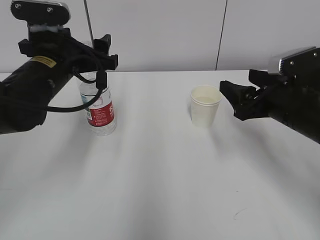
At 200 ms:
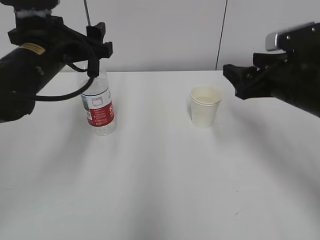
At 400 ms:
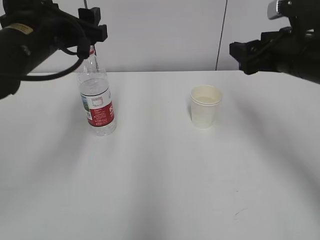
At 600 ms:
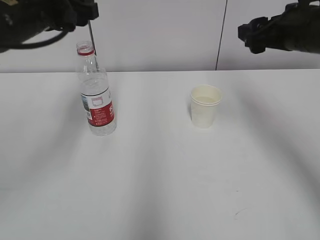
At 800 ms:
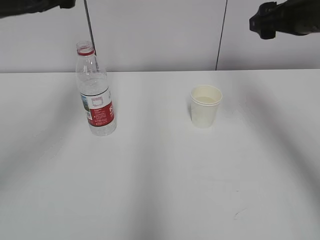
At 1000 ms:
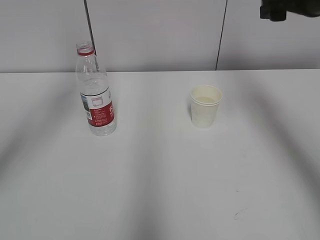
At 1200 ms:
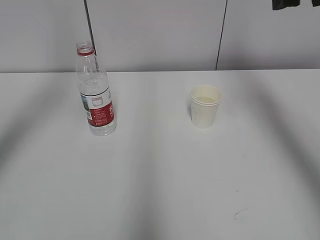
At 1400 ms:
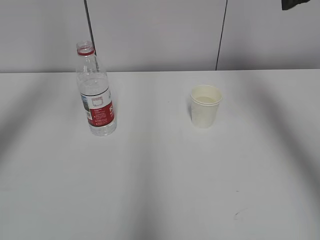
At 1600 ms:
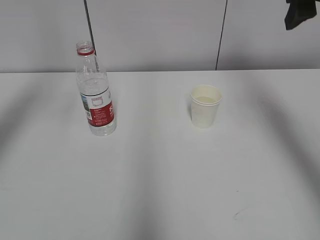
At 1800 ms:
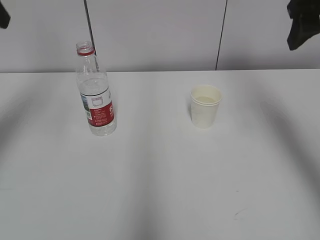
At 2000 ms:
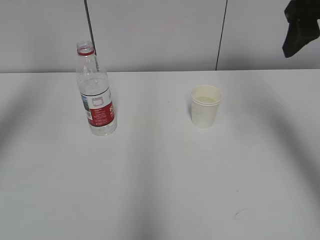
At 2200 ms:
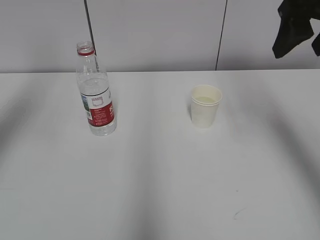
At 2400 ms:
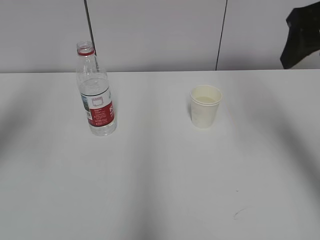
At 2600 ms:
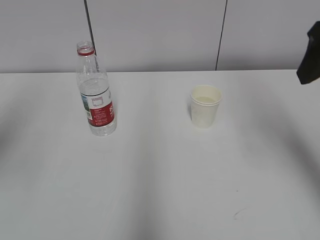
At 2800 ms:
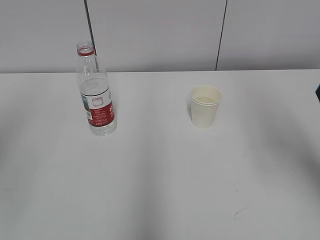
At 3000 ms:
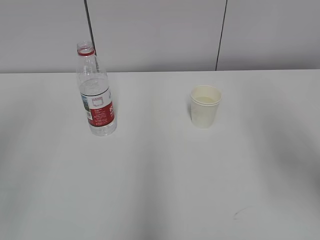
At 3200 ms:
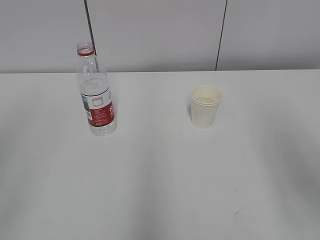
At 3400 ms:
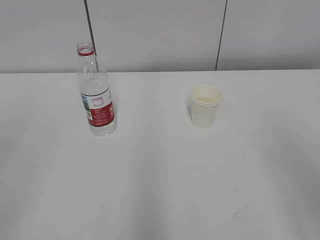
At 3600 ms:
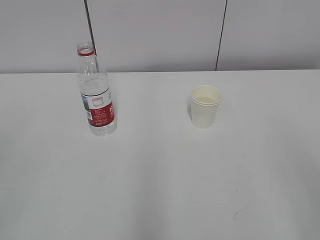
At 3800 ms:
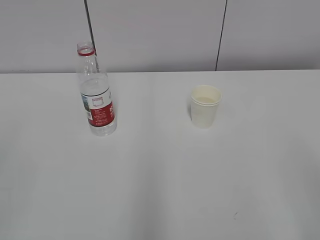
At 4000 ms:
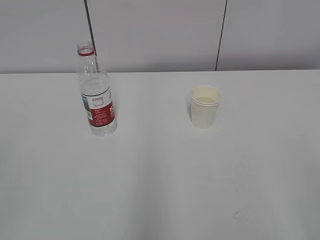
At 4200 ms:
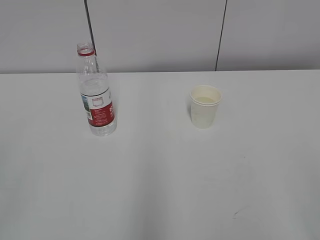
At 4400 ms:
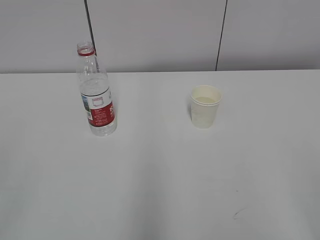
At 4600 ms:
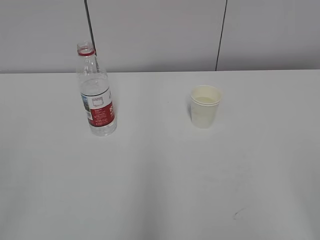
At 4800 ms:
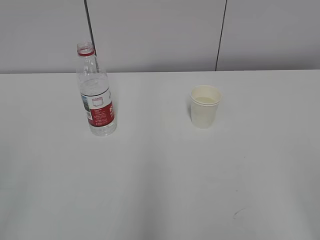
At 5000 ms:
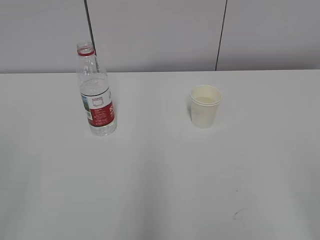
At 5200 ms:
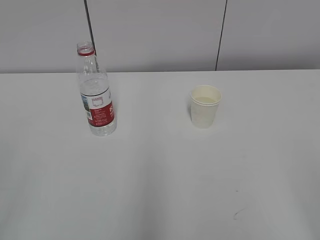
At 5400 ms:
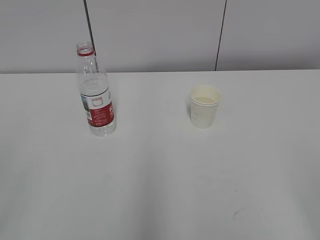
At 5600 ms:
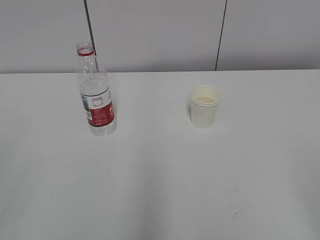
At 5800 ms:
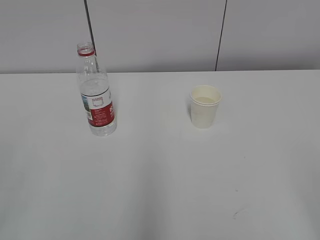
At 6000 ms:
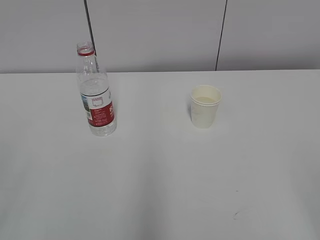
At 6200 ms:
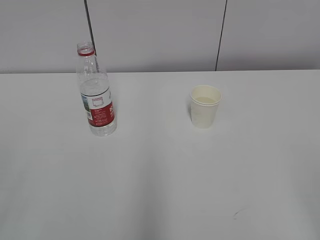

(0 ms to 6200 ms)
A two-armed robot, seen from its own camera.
0 ms - 1600 ms: The left gripper moves upward and to the left, some 20 cm. Meanwhile the right gripper travels upward by about 20 cm.
1600 ms - 3200 ms: Both grippers travel together backward, about 25 cm.

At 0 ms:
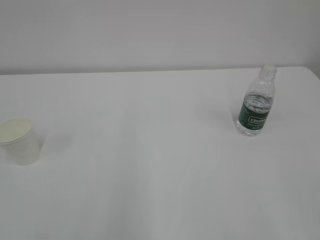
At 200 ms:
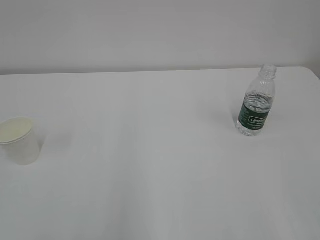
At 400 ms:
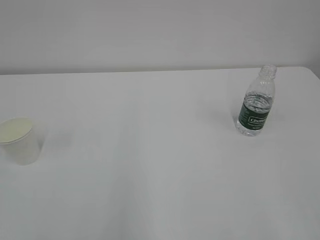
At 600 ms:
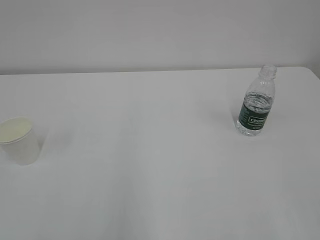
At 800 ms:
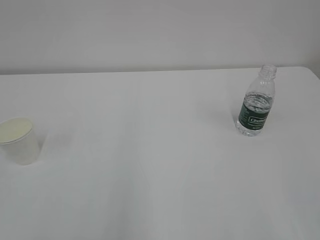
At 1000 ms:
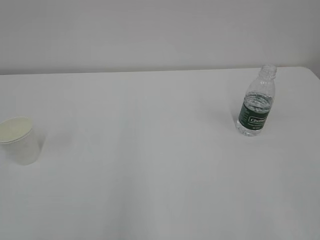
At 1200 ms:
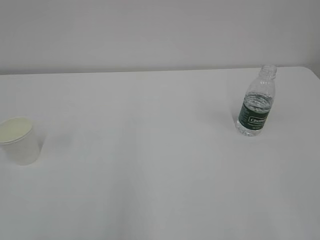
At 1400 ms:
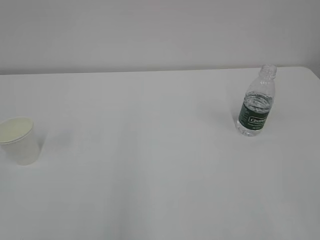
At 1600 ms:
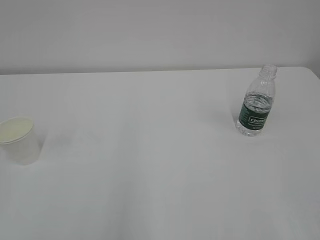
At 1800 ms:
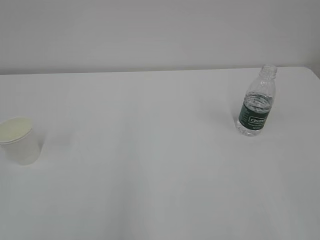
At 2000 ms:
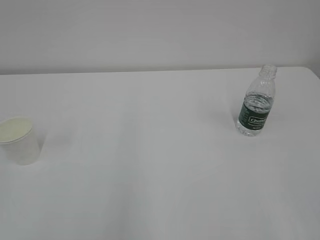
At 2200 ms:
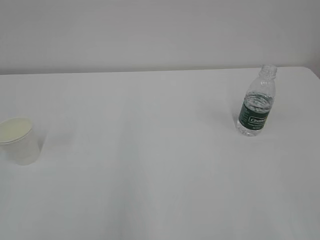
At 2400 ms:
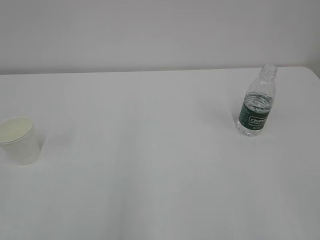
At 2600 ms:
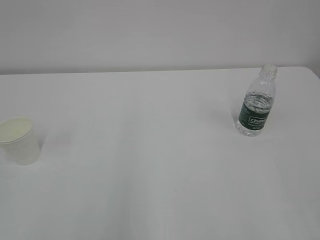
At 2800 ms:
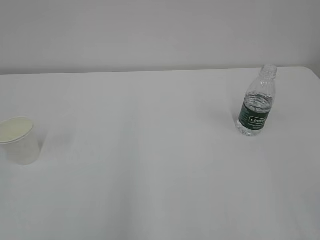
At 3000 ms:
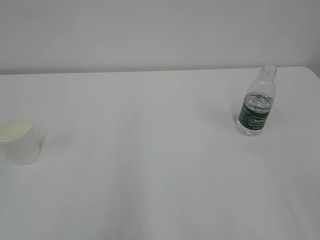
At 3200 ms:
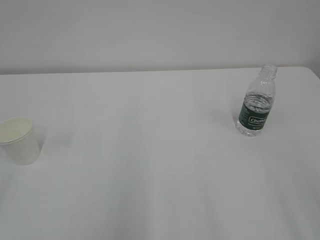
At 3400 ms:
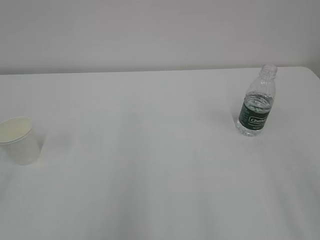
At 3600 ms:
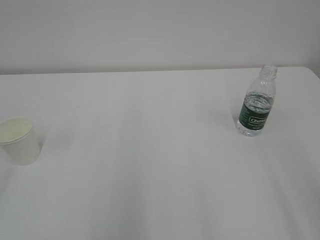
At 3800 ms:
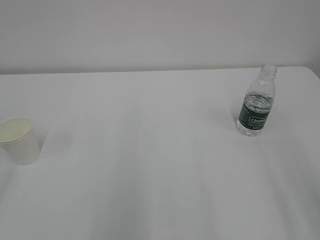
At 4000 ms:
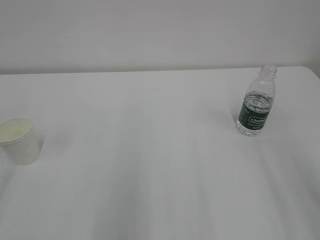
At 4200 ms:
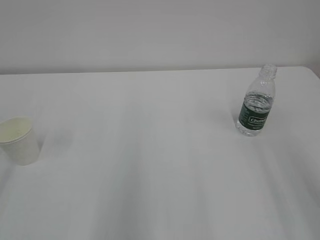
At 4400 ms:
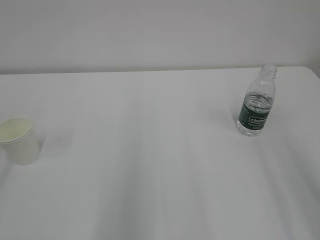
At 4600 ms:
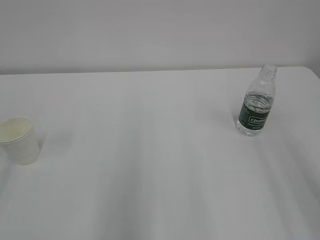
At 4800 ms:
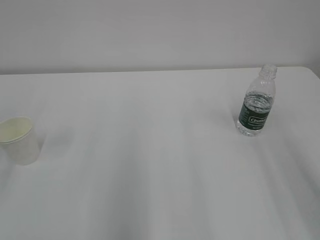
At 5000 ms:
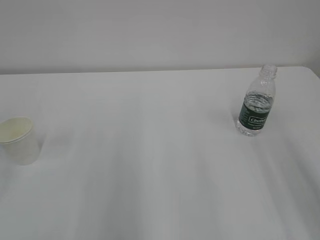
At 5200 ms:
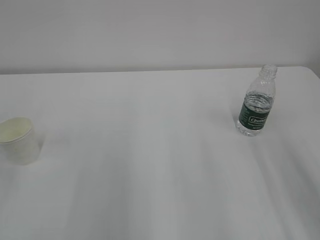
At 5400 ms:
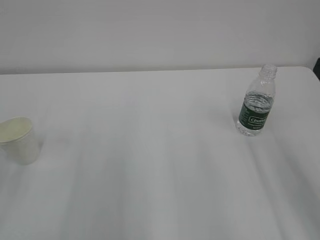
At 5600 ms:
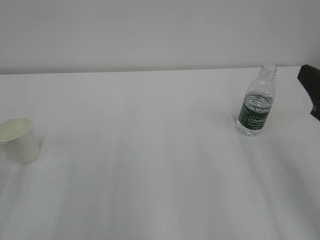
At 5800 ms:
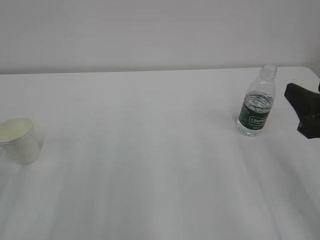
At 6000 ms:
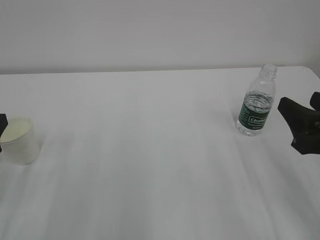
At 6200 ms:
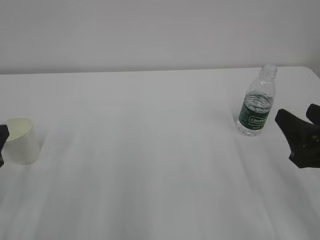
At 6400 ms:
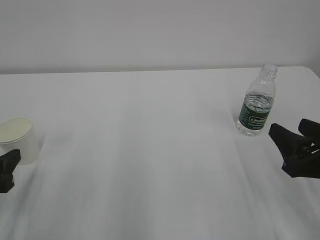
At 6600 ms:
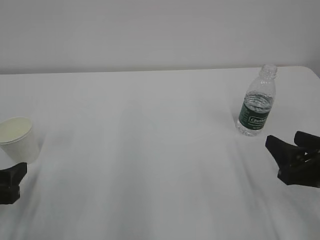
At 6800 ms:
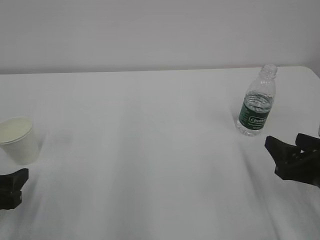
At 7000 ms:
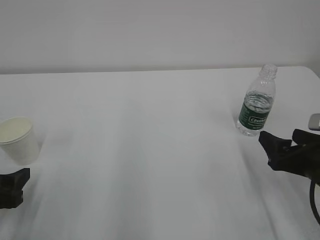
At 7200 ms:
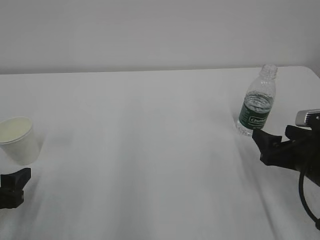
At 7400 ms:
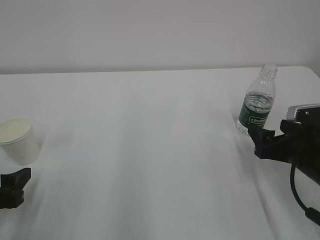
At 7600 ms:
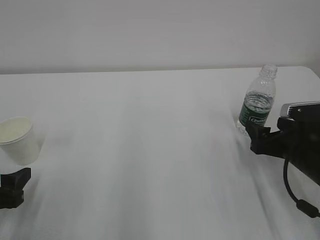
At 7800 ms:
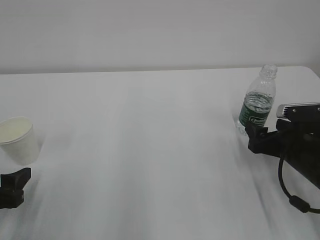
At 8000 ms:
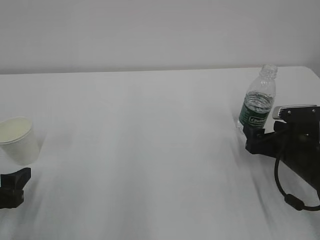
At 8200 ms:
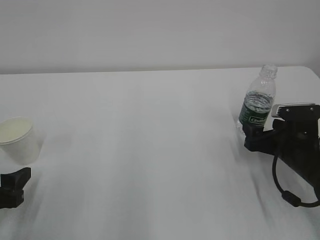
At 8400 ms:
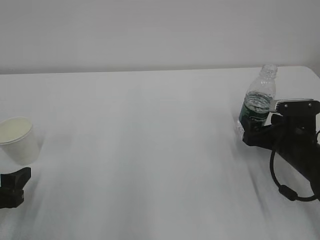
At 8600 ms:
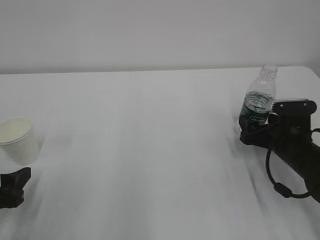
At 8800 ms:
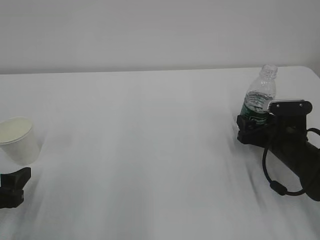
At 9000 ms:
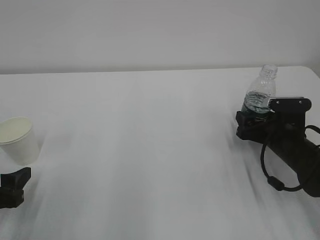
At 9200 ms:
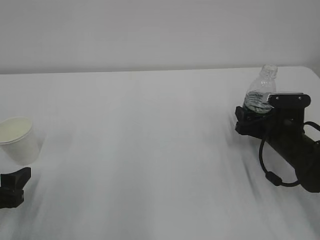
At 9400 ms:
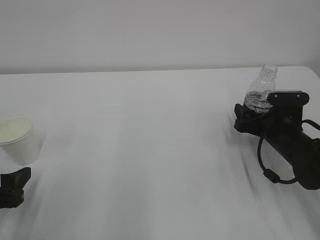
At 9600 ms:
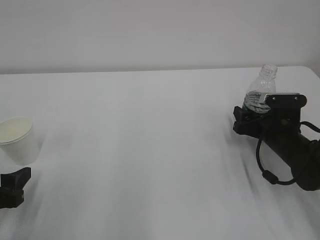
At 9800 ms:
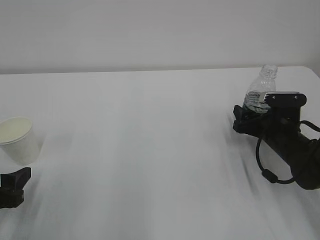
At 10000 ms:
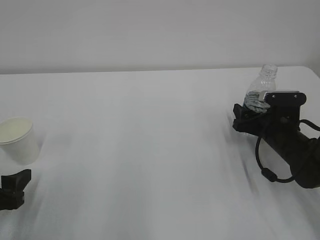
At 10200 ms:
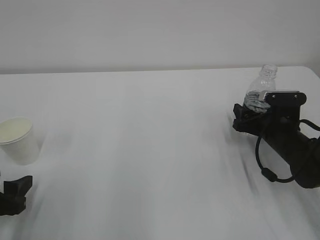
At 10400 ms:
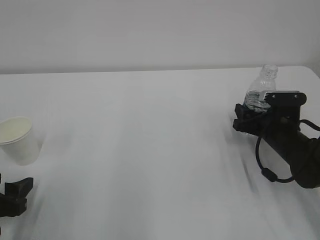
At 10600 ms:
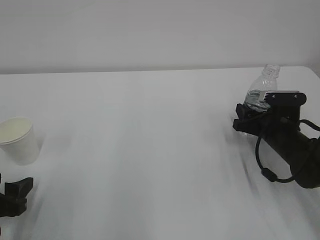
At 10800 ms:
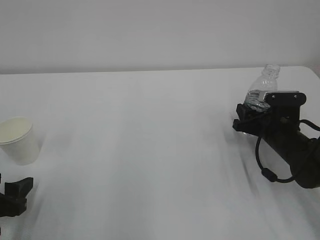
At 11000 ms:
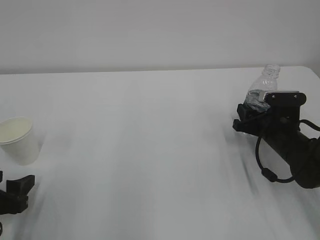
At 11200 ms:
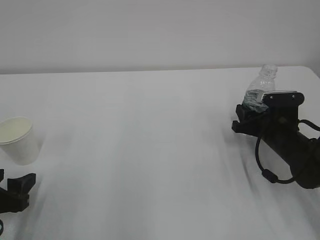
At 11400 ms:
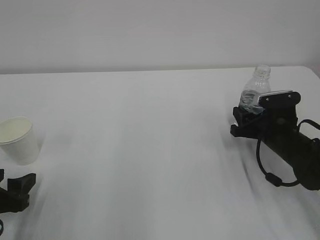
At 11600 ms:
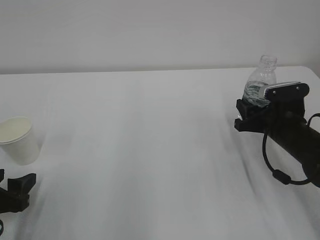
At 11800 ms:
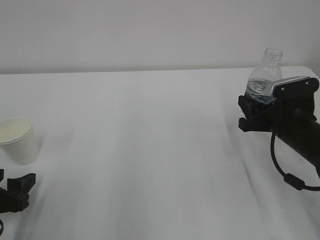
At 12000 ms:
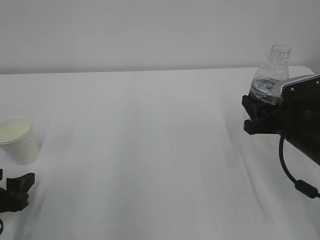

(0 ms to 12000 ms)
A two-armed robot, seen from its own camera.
4400 ms - 6000 ms: The right gripper moves downward and forward, roughly 15 cm.
6000 ms - 7600 ms: The left gripper heads downward, covering some 10 cm. The right gripper is displaced downward and forward by roughly 15 cm, and opens.
7600 ms - 9000 ms: The right gripper goes about 5 cm forward.
9000 ms - 10400 ms: The right gripper closes.
10400 ms - 12000 ms: The right gripper goes approximately 10 cm upward and backward, and closes.

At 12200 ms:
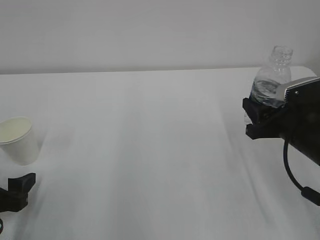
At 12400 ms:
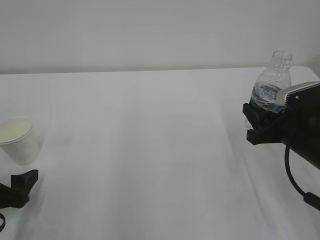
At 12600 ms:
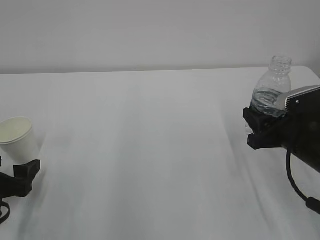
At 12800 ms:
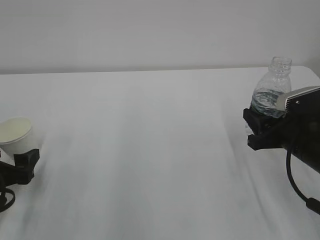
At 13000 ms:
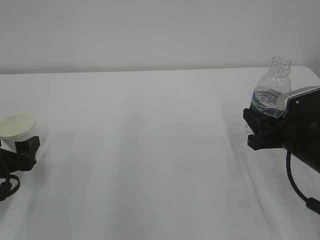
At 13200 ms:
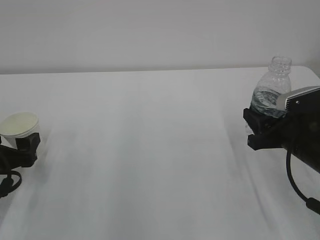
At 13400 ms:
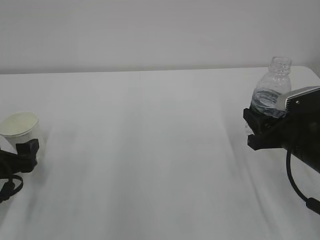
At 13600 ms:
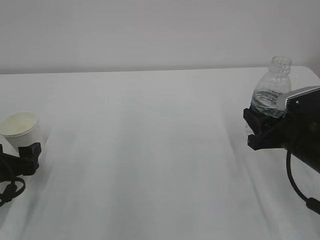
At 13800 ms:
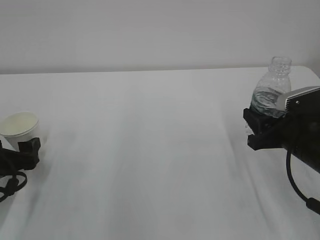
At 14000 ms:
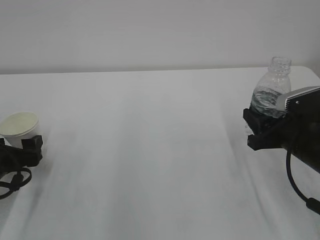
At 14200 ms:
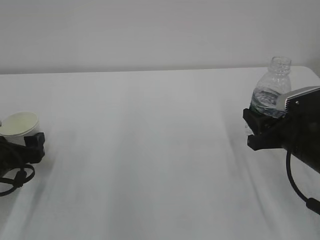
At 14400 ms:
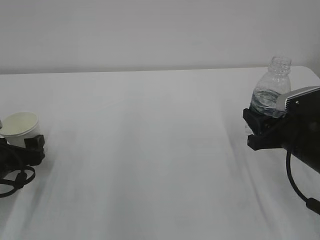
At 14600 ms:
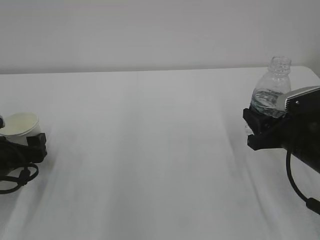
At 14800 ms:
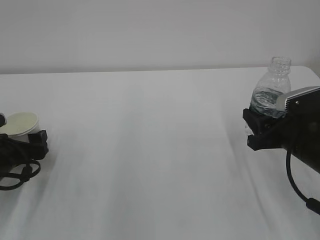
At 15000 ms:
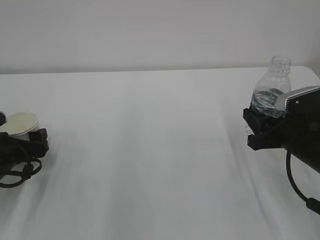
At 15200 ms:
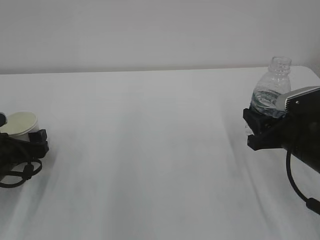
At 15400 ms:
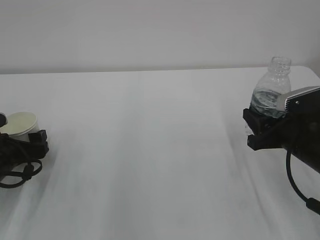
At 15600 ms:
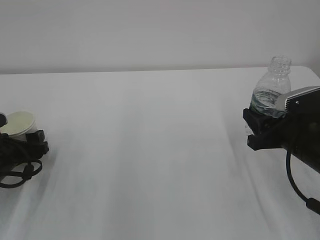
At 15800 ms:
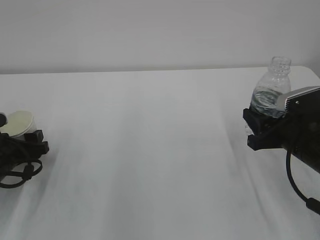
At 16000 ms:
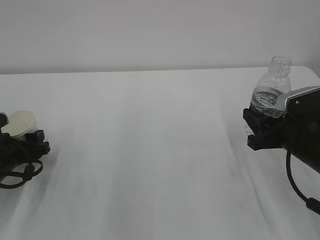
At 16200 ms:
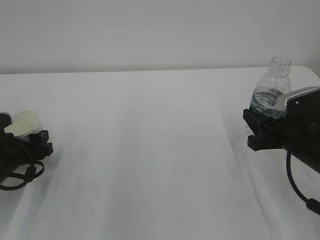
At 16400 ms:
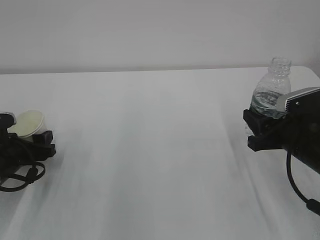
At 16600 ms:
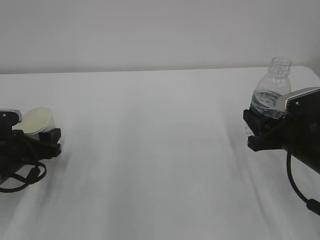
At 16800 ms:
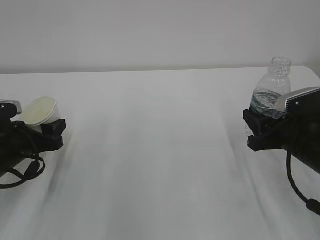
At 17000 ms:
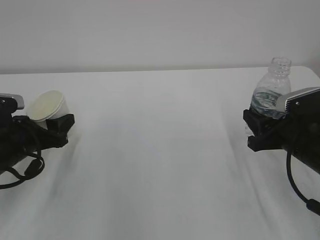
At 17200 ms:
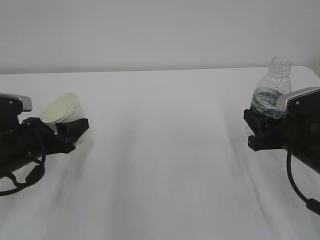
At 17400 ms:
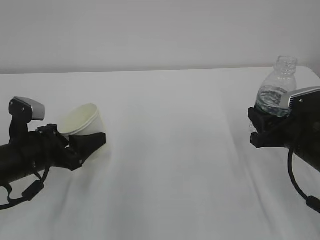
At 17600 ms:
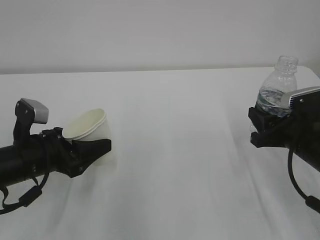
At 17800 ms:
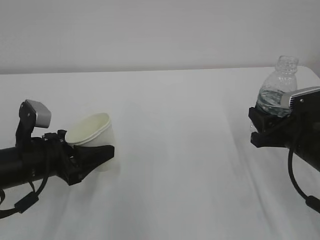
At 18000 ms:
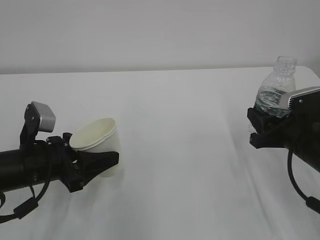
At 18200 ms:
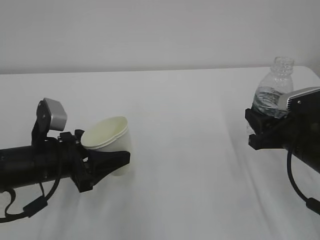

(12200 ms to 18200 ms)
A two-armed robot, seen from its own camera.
12200 ms - 13800 ms: The left gripper moves forward, approximately 5 cm.
13800 ms - 15200 ms: The grippers stay close to where they were, moving slightly.
15200 ms - 16600 ms: The left gripper closes its fingers.
16600 ms - 18200 ms: The left gripper is displaced to the right by about 10 cm.
